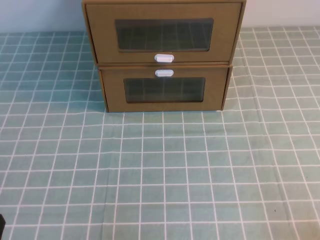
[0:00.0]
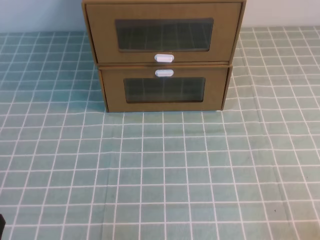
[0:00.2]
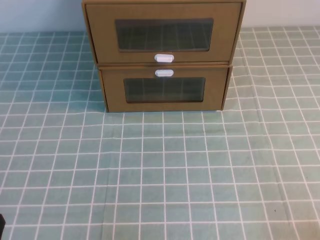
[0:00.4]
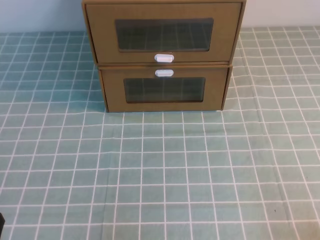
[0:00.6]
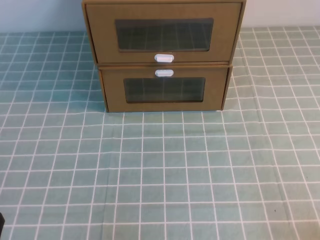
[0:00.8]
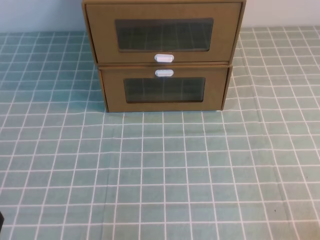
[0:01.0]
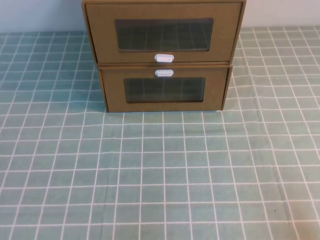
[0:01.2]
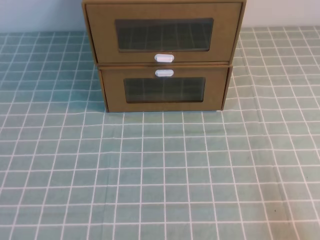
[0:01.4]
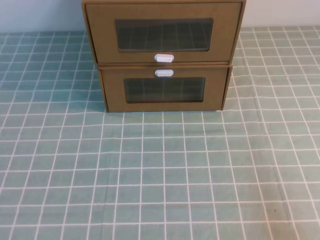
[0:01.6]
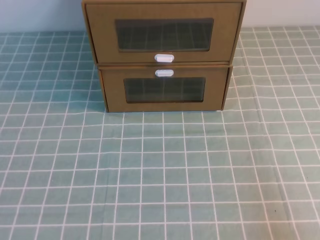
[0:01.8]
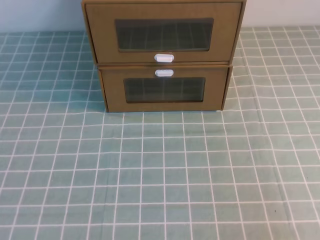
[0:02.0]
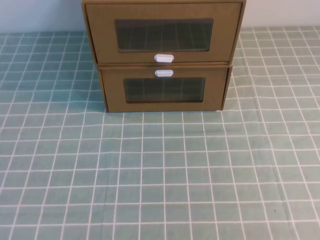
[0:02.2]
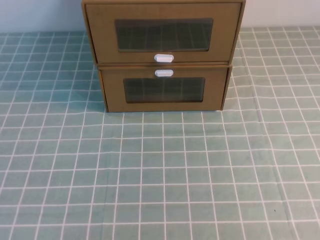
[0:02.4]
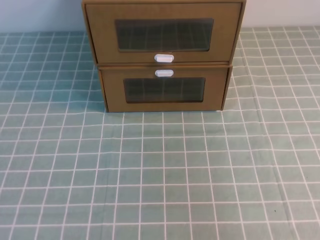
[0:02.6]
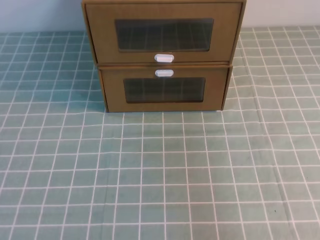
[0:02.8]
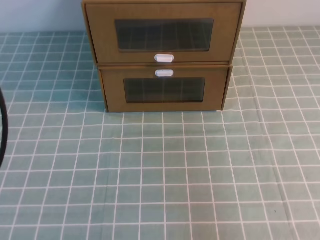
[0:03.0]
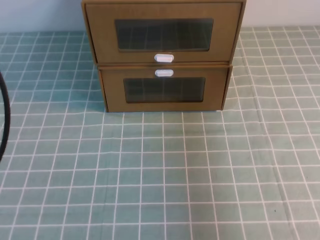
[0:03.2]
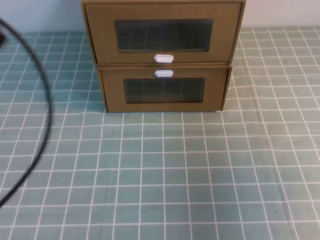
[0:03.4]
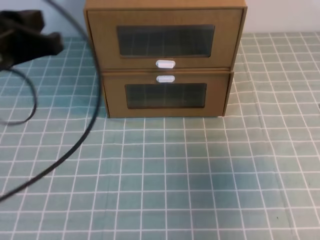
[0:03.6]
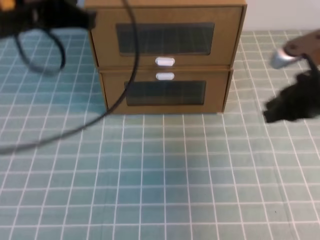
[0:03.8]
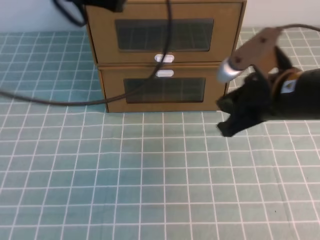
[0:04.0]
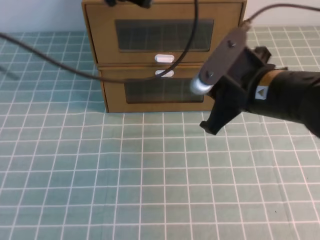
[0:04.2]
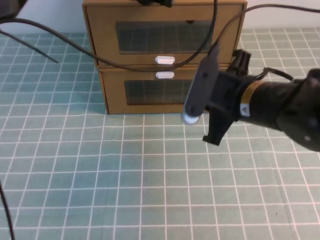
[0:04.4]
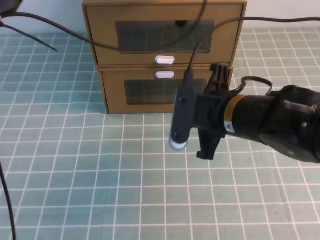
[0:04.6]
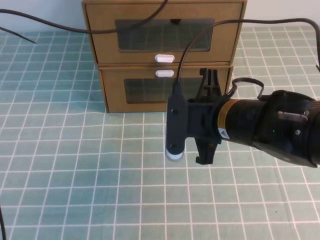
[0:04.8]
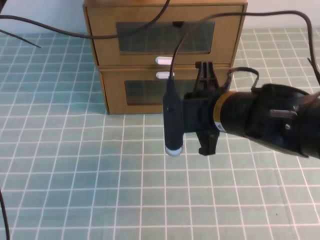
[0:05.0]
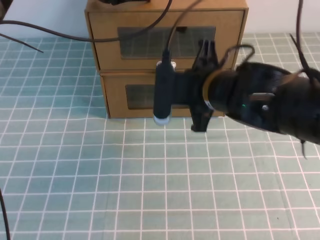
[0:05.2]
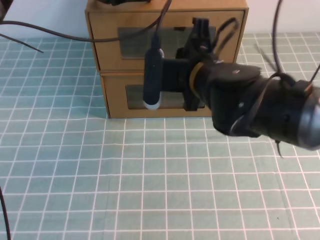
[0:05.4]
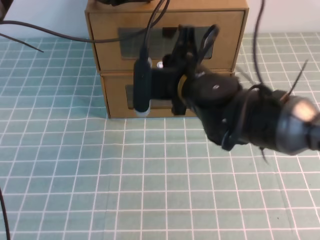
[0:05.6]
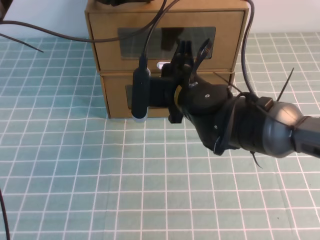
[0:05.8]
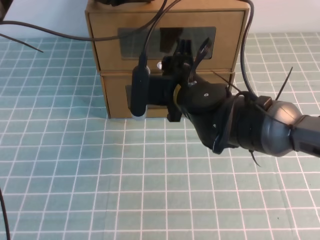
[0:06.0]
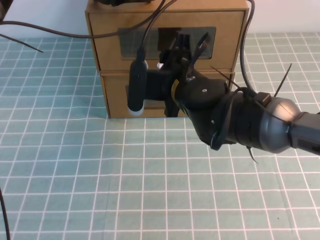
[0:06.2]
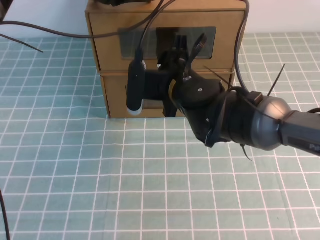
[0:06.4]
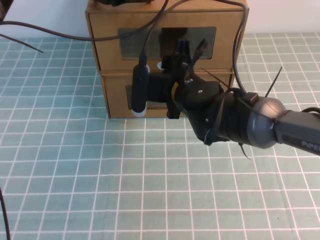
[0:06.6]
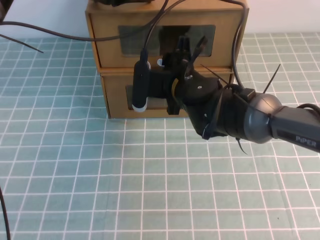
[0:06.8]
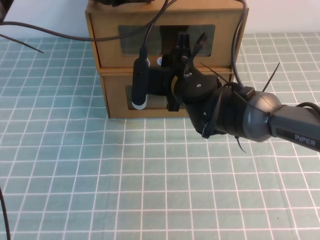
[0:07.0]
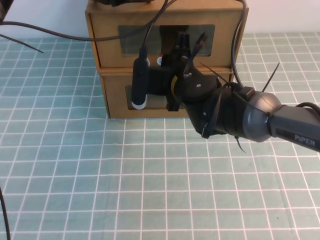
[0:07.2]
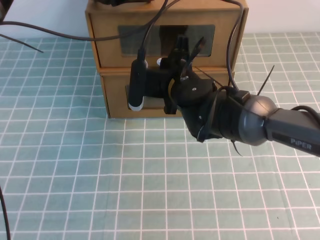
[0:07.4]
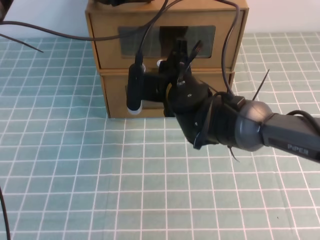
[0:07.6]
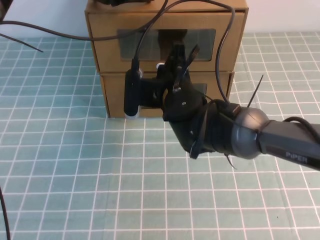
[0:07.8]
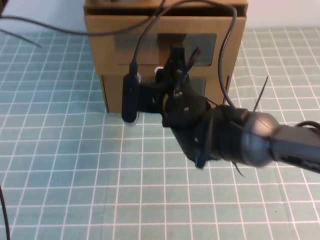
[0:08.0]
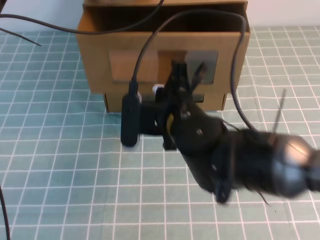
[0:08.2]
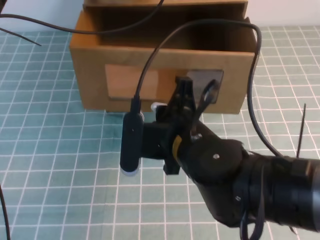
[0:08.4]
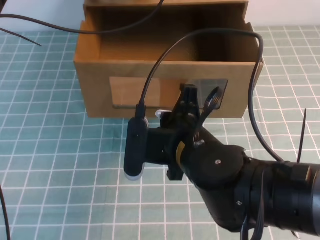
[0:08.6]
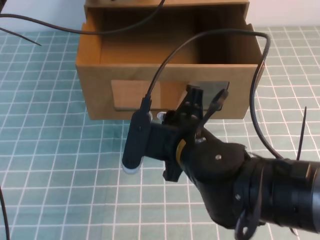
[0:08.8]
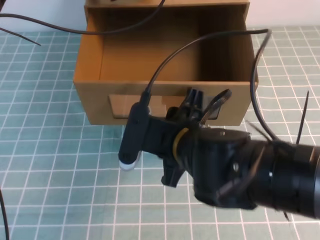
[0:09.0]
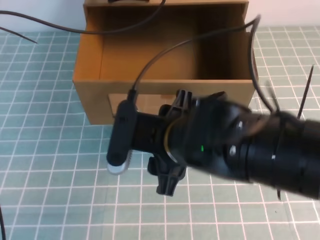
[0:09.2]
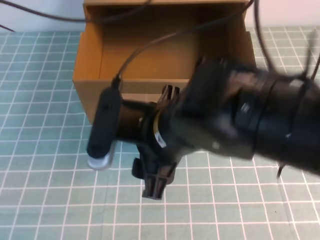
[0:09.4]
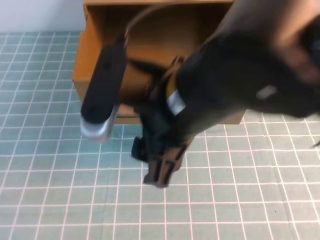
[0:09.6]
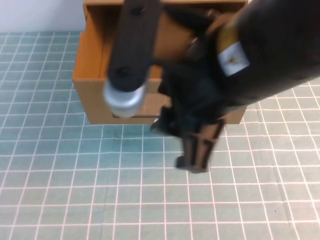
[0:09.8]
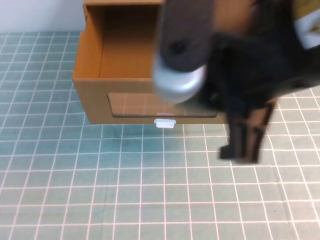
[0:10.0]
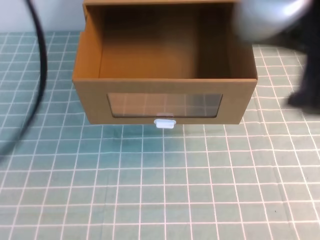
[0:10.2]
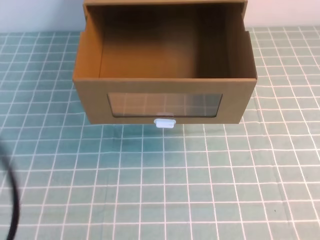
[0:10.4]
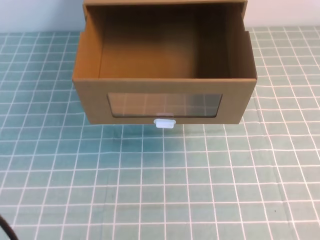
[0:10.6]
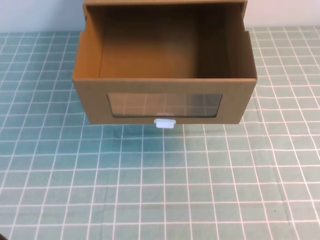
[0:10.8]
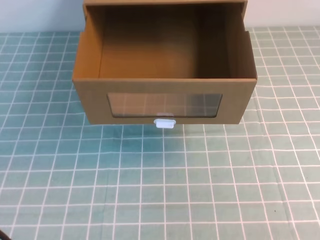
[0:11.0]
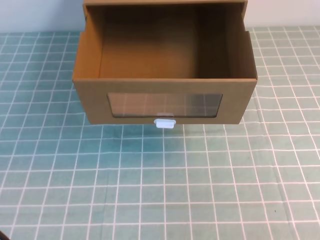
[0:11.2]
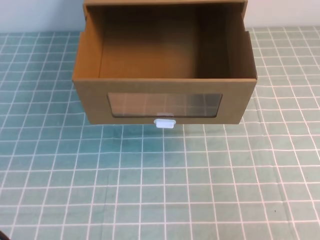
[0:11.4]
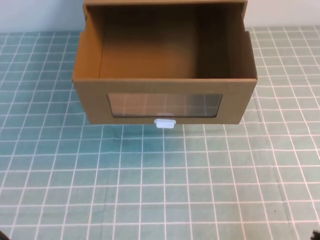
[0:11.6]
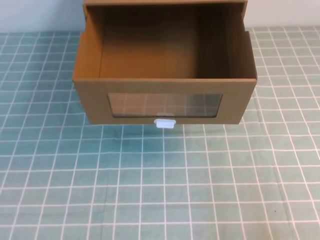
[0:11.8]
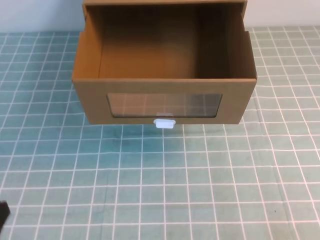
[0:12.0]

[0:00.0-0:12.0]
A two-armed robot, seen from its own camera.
Task of the whole recording: open the shoebox on the cyan tablecloth.
0:01.6 to 0:03.0: The two grippers go about 20 cm upward and forward.
0:03.0 to 0:04.4: The right gripper shifts some 25 cm to the left, downward and forward. Meanwhile the left gripper heads forward and to the right, covering roughly 30 cm.
0:04.4 to 0:06.0: The left gripper shifts some 5 cm forward. Meanwhile the right gripper heads to the left and forward, covering some 10 cm, and opens its fingers.
0:06.0 to 0:07.6: The right gripper closes.
0:07.6 to 0:09.0: The right gripper moves backward, roughly 15 cm, and opens up.
0:09.0 to 0:10.4: The left gripper goes some 35 cm backward; the right gripper moves upward, to the right and backward, some 35 cm, and closes.
0:10.4 to 0:12.0: The left gripper shifts some 20 cm downward. The right gripper shifts approximately 35 cm downward.

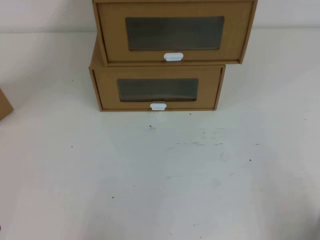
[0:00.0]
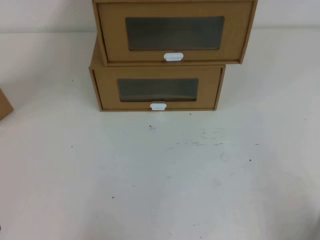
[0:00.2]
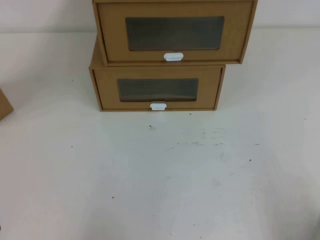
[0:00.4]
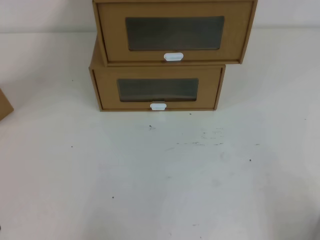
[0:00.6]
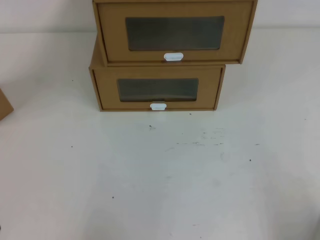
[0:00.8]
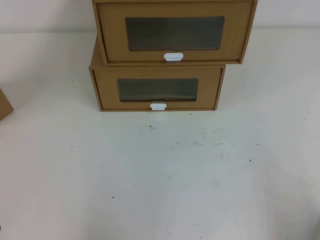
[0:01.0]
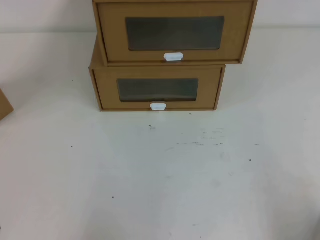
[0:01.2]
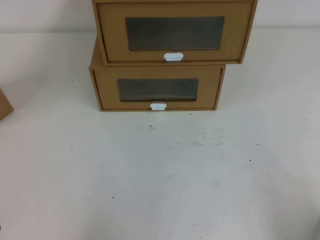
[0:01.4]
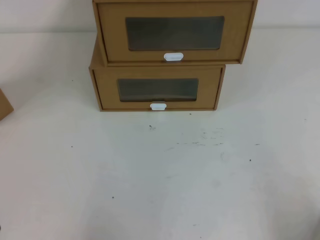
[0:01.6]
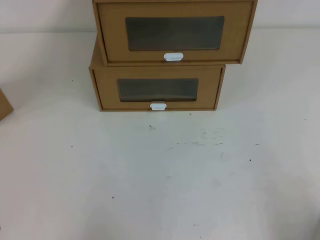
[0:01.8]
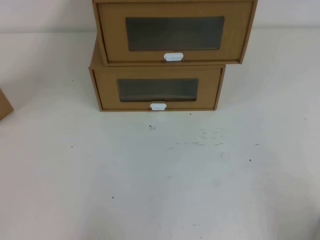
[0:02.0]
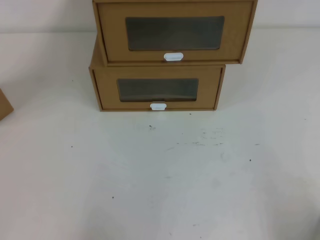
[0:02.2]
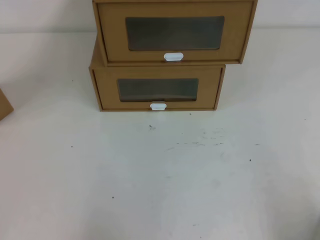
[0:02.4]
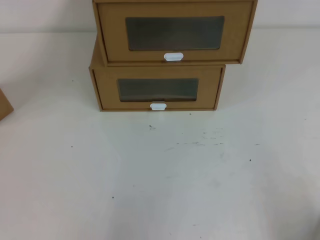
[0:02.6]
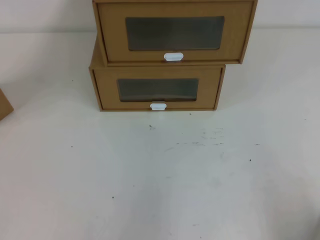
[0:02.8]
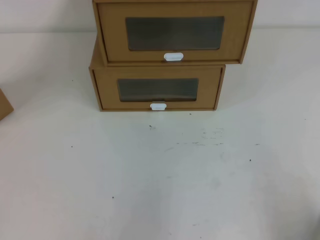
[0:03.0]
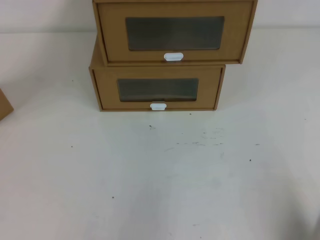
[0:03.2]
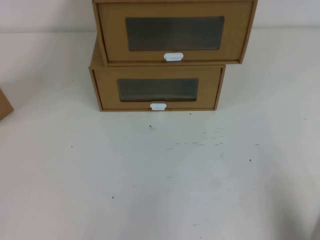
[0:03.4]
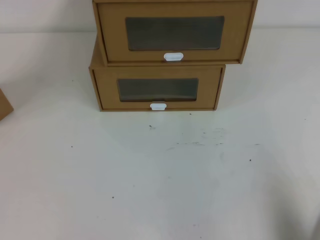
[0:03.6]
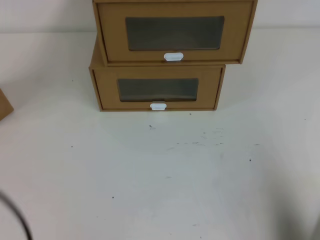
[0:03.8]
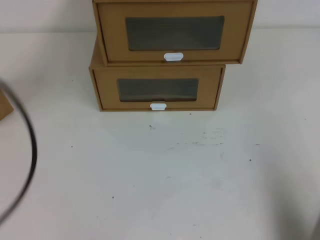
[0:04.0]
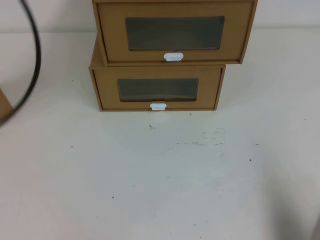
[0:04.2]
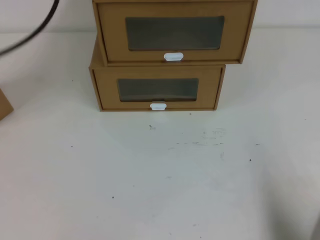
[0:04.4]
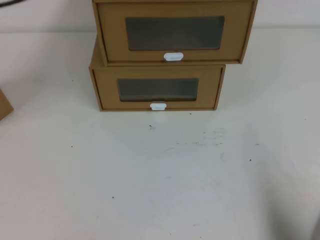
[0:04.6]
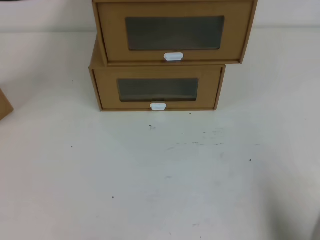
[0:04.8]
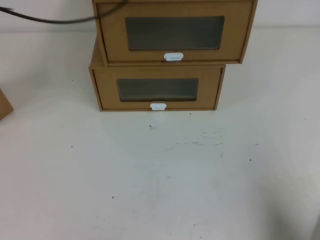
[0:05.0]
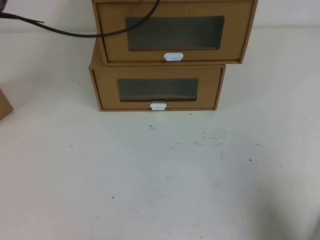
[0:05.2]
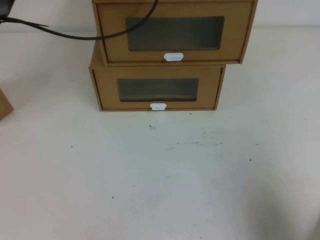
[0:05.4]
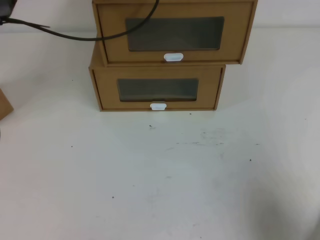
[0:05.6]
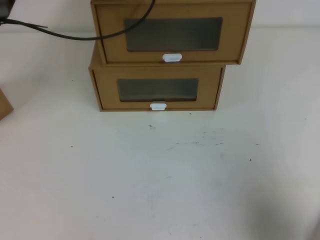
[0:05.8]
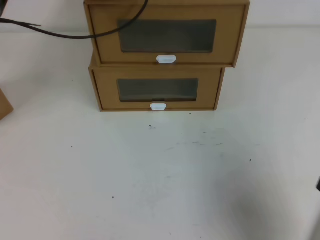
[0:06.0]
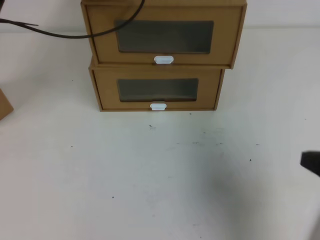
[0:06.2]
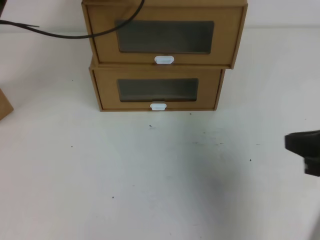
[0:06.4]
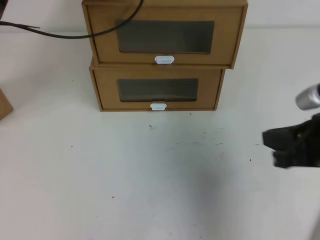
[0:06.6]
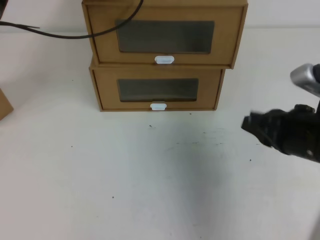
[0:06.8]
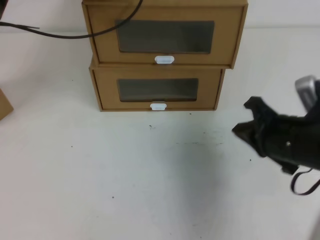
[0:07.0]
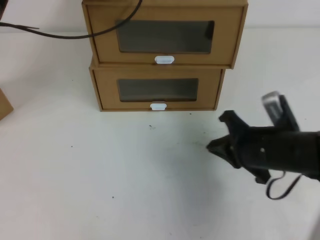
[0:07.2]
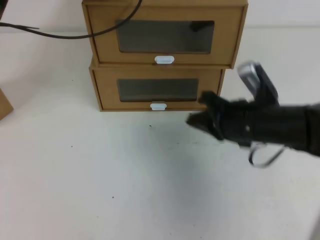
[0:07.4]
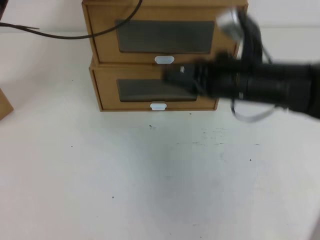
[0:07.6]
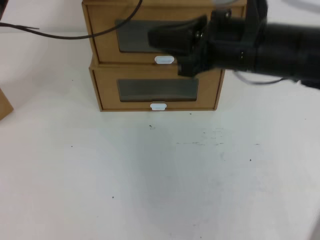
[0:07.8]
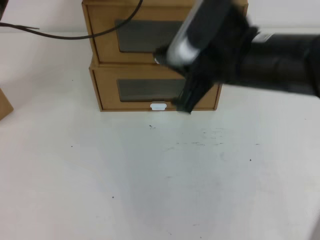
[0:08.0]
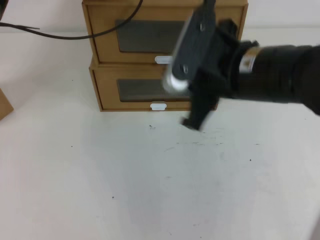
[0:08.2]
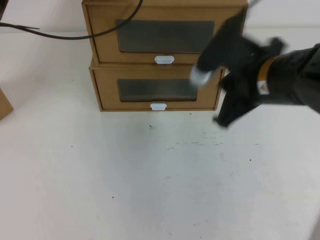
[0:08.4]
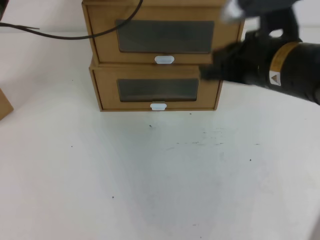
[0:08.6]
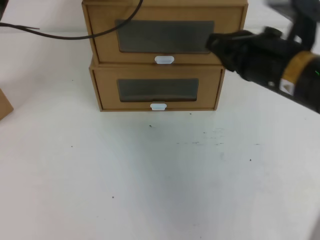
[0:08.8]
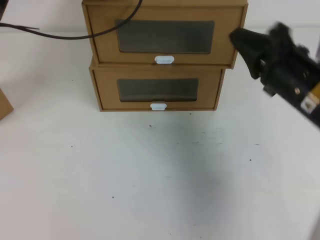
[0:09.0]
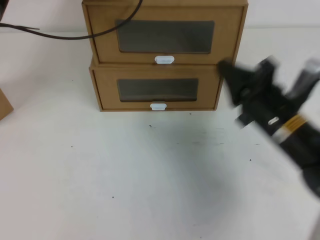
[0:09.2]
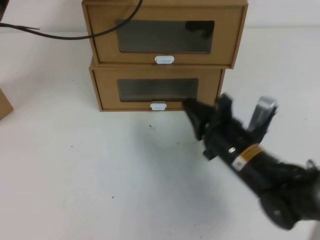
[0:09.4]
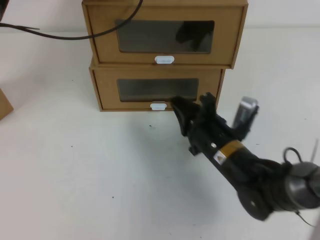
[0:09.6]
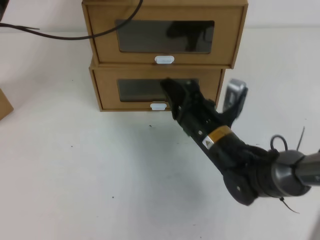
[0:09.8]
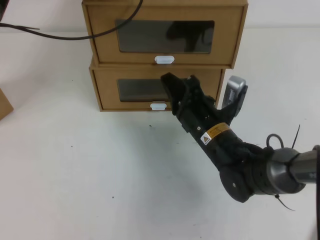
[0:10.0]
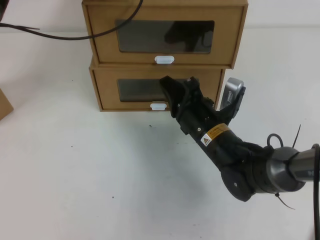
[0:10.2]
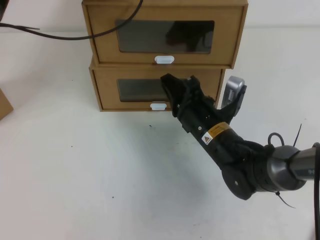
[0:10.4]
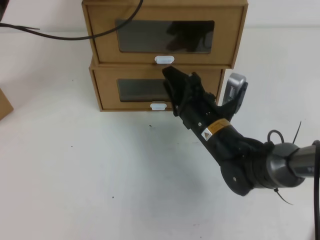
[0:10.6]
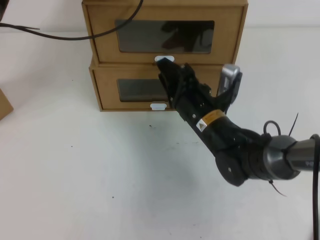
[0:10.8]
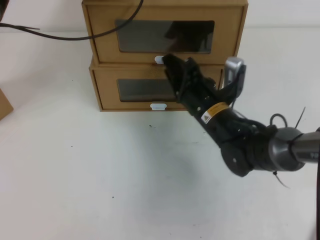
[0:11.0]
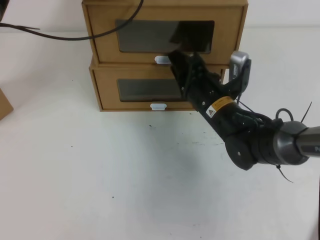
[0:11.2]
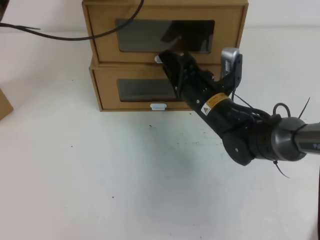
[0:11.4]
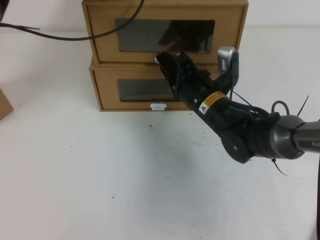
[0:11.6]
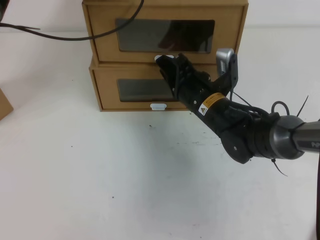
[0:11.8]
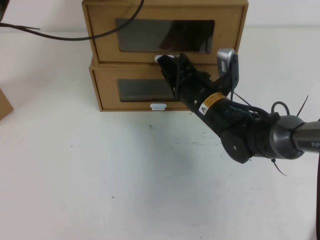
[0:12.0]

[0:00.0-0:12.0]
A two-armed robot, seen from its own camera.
Task of the whole recording: open the shoebox on the table.
0:03.0 to 0:04.4: The left gripper heads upward and forward, covering about 35 cm.
0:04.4 to 0:06.0: The right gripper shifts roughly 5 cm forward; the left gripper is displaced forward by approximately 25 cm.
0:06.0 to 0:07.6: The right gripper moves forward and to the left, some 25 cm.
0:09.0 to 0:10.4: The right gripper moves downward and to the left, about 15 cm.
0:10.4 to 0:12.0: The right gripper shifts by about 5 cm, and opens its fingers.
